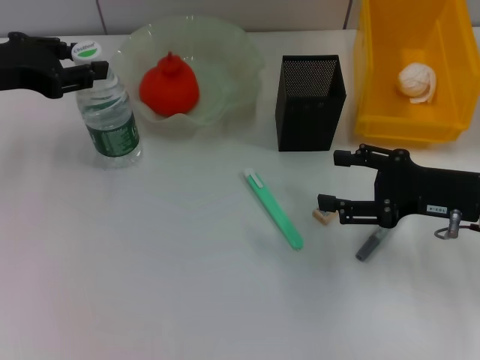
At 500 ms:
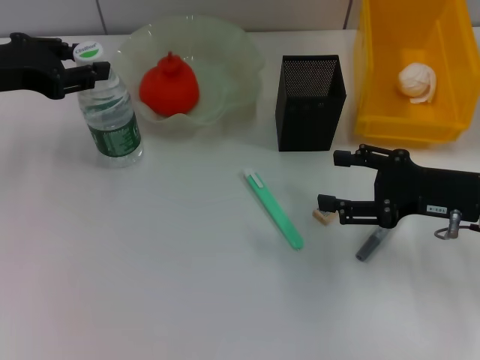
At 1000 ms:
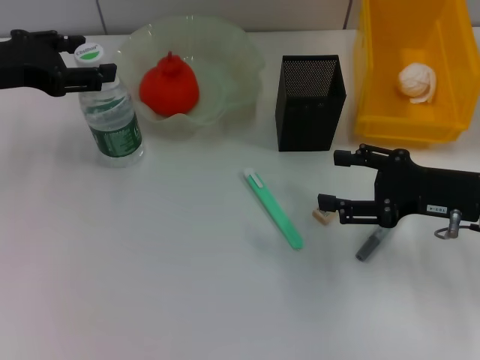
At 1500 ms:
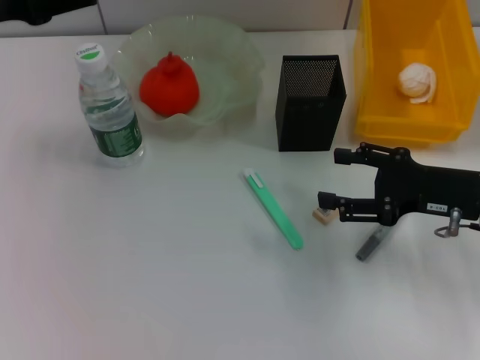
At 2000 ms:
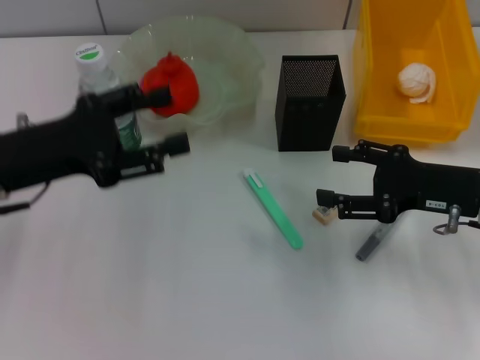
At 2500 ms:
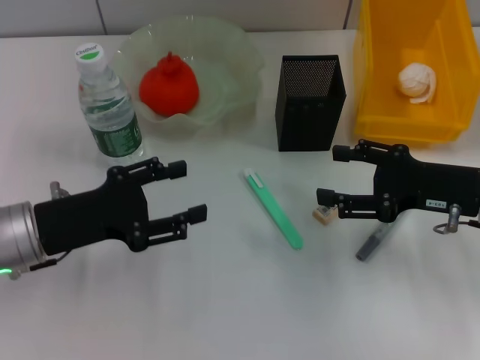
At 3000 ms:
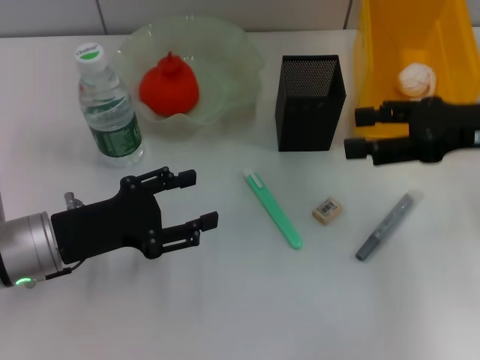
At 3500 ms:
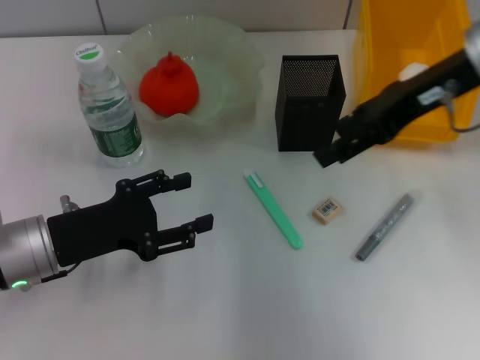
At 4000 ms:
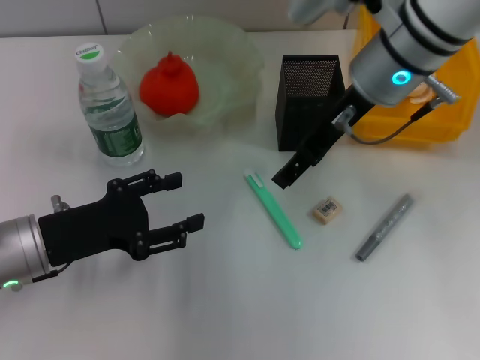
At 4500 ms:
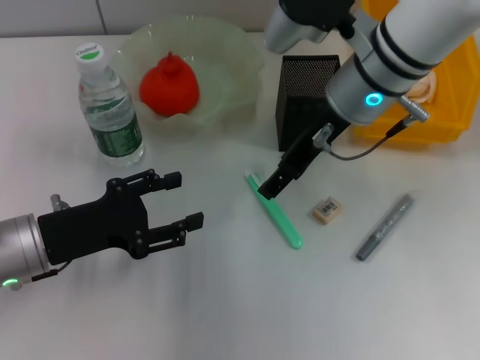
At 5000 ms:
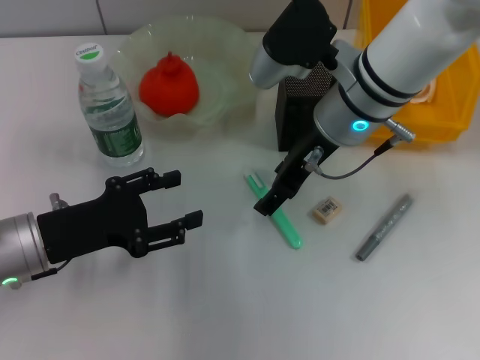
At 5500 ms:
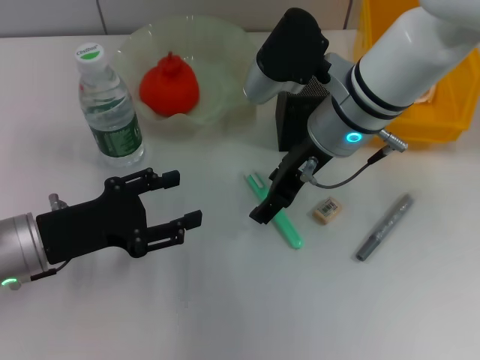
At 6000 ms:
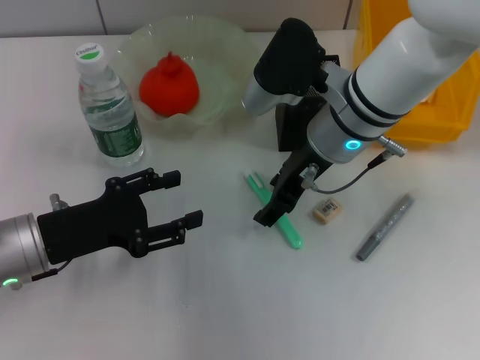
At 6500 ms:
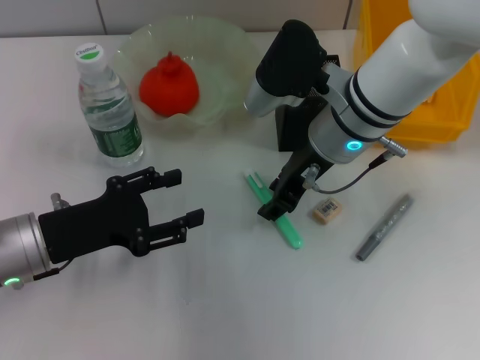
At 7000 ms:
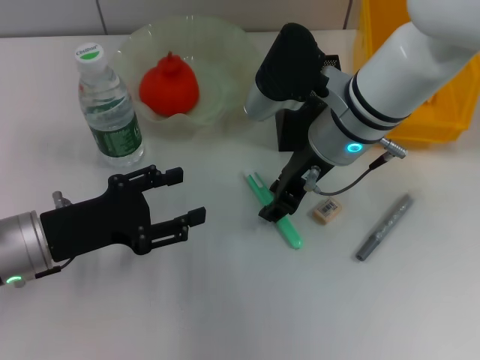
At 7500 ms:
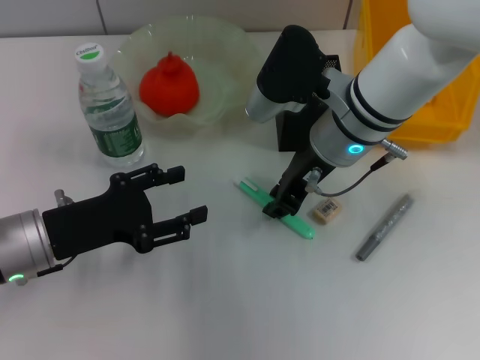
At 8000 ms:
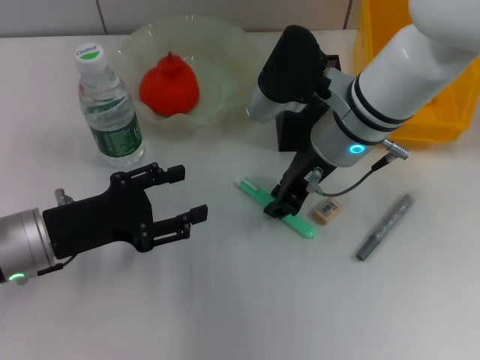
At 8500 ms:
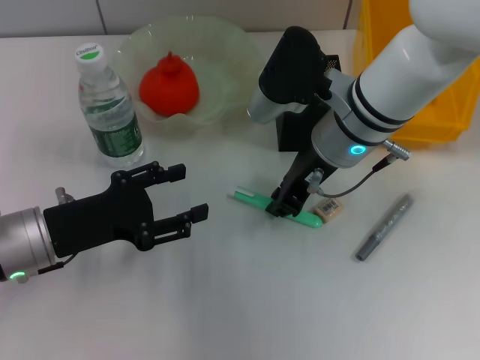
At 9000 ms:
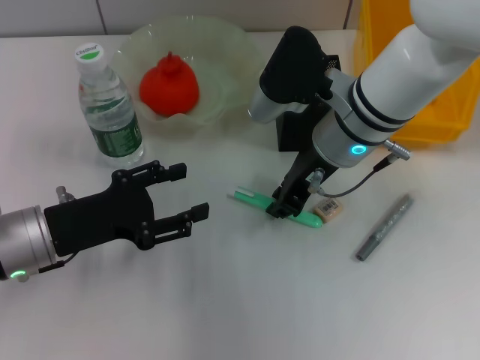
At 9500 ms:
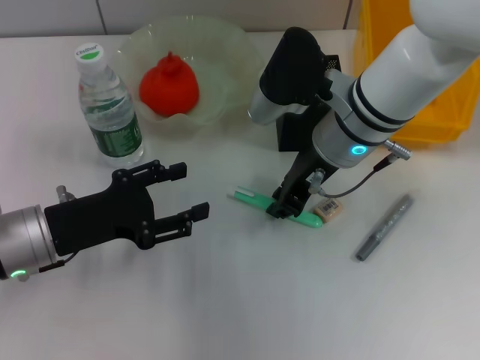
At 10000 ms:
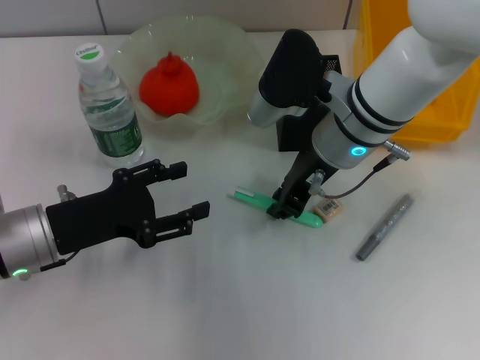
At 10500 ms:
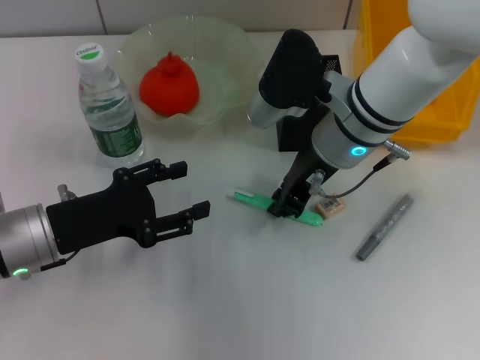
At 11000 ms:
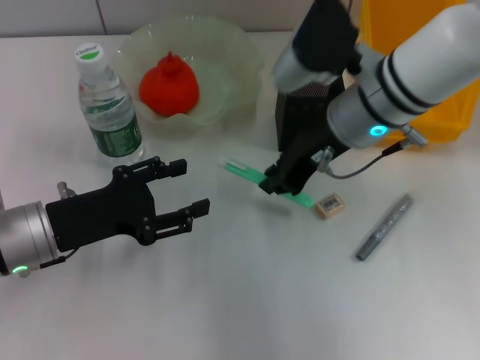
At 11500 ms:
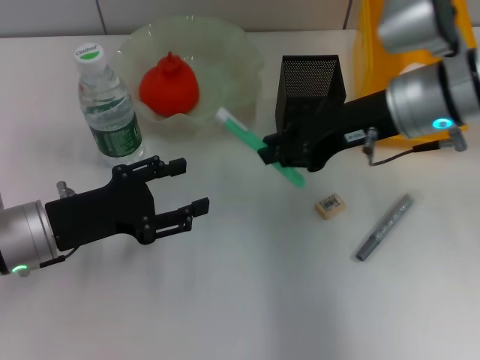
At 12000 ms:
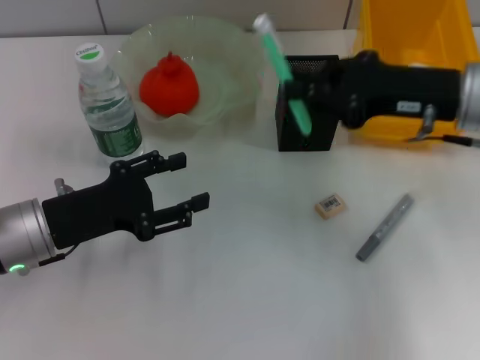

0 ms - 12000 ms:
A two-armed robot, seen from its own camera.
Step, 1500 ms - 10000 ms: Grab the blue utility knife with the right hand.
0 ms - 2000 ms: The left gripper moves backward and downward, approximately 10 cm, and opens.
2000 ms - 4000 ms: The right gripper travels to the left, upward and forward by approximately 20 cm, while the left gripper goes some 10 cm downward.
4000 ms - 6000 ms: The right gripper is displaced downward by about 5 cm.
6000 ms - 8000 ms: The right gripper closes its fingers.
8000 ms - 10000 ms: The two grippers keep their place.
10000 ms - 12000 ms: The right gripper heads to the right, covering approximately 15 cm.

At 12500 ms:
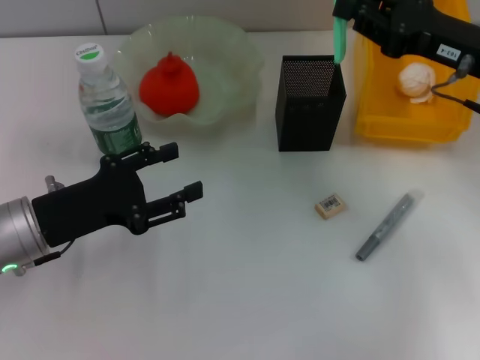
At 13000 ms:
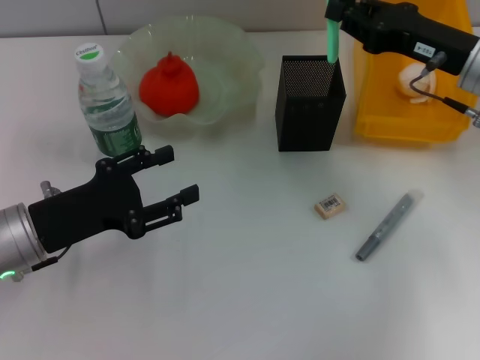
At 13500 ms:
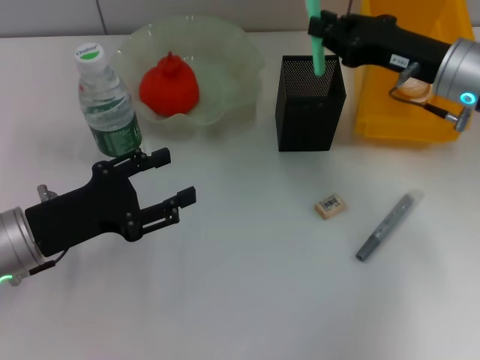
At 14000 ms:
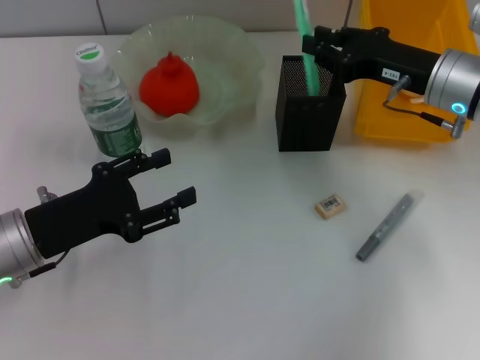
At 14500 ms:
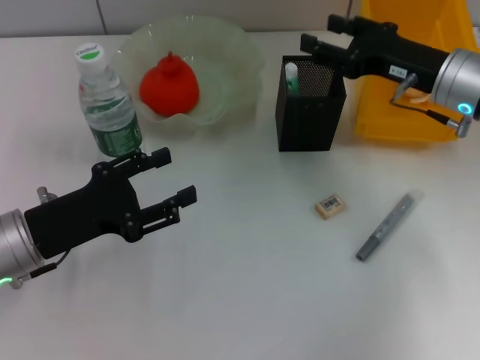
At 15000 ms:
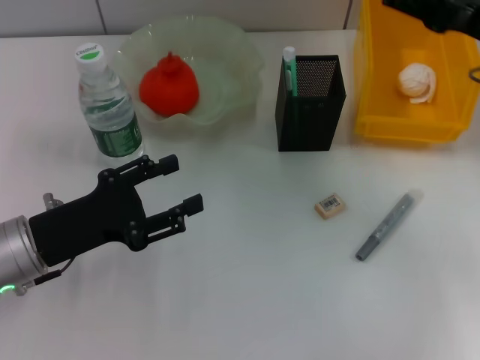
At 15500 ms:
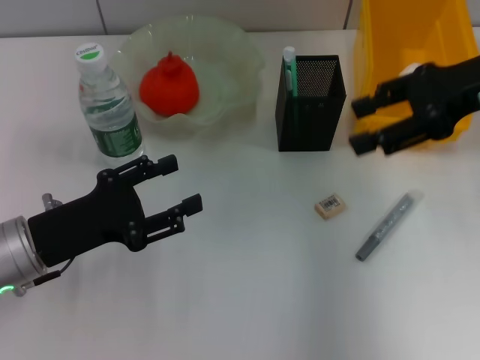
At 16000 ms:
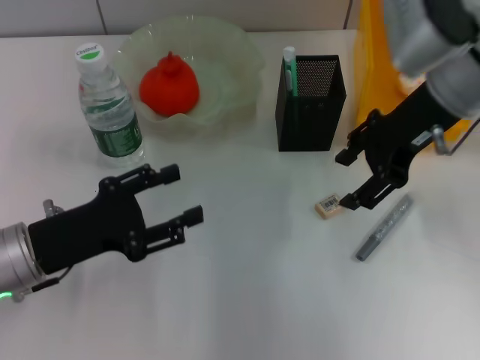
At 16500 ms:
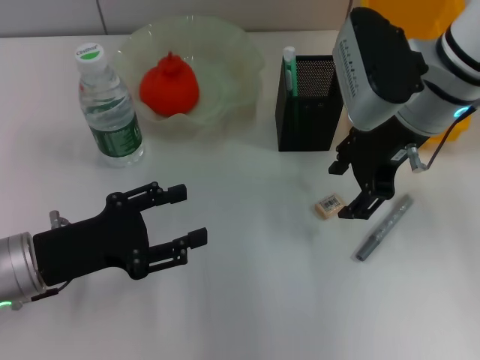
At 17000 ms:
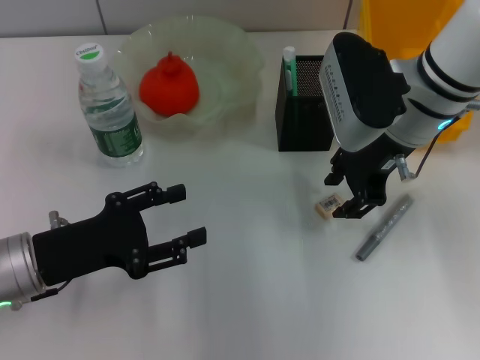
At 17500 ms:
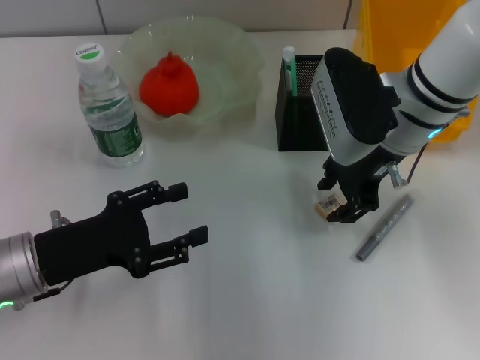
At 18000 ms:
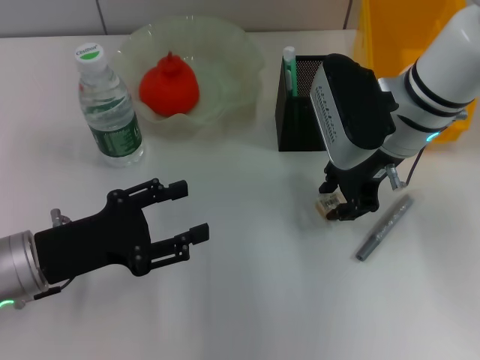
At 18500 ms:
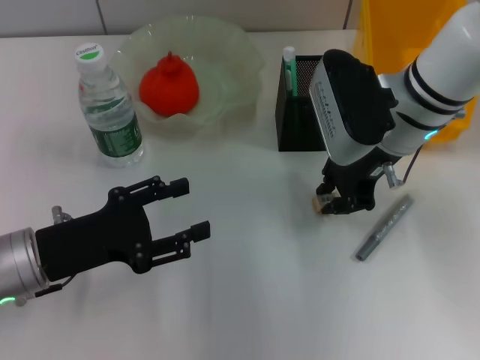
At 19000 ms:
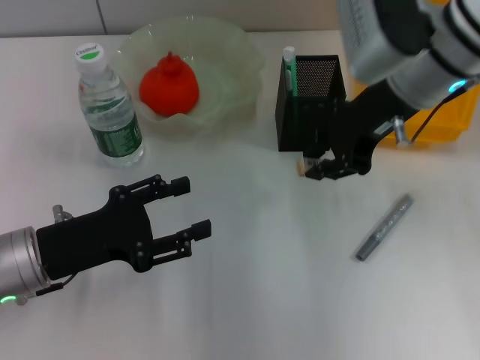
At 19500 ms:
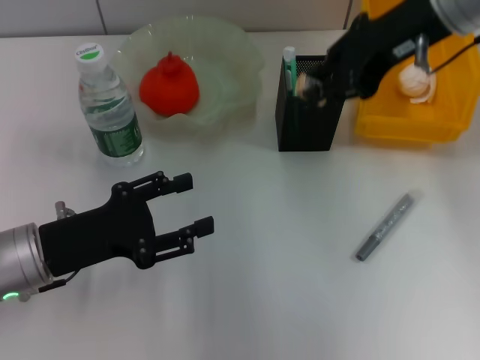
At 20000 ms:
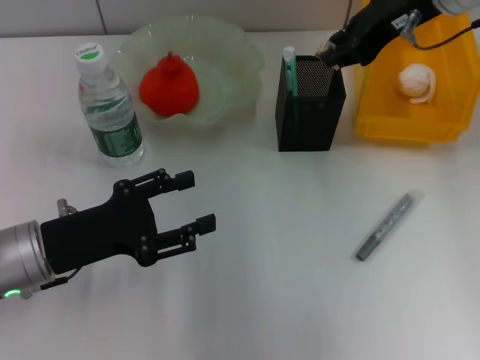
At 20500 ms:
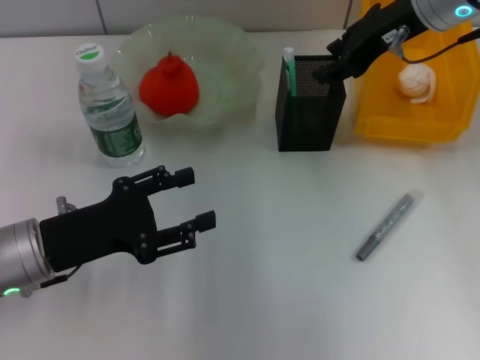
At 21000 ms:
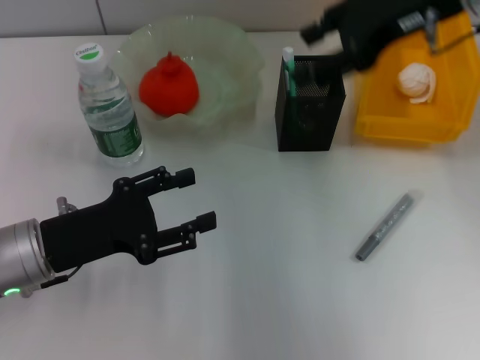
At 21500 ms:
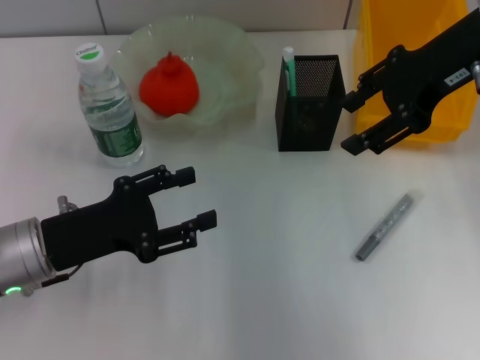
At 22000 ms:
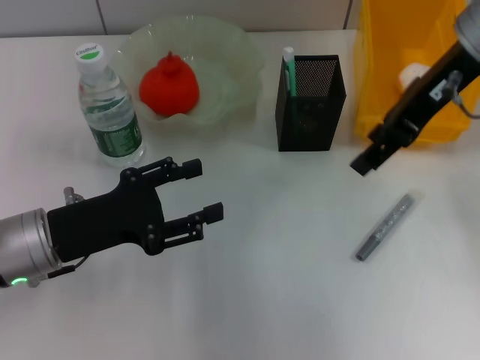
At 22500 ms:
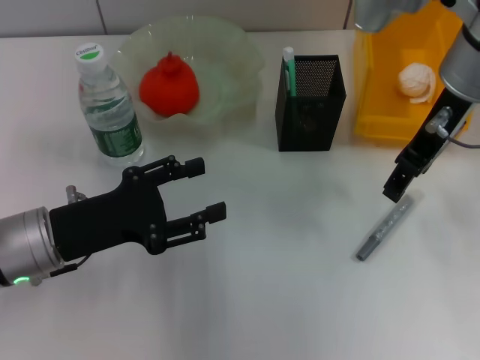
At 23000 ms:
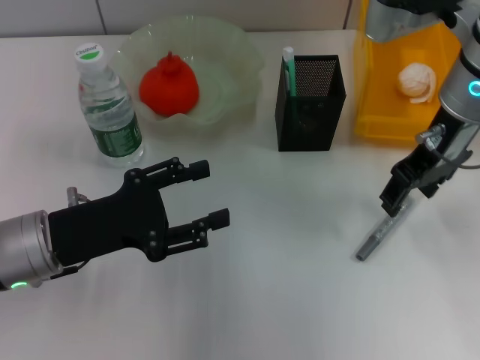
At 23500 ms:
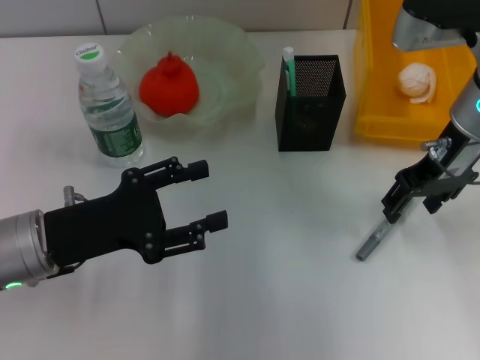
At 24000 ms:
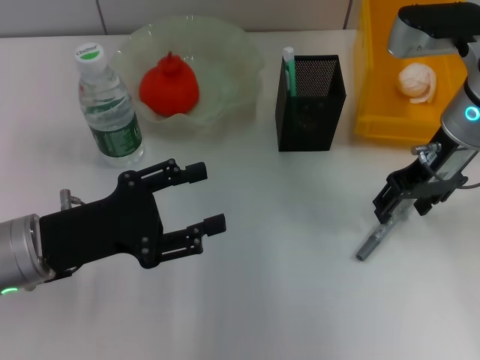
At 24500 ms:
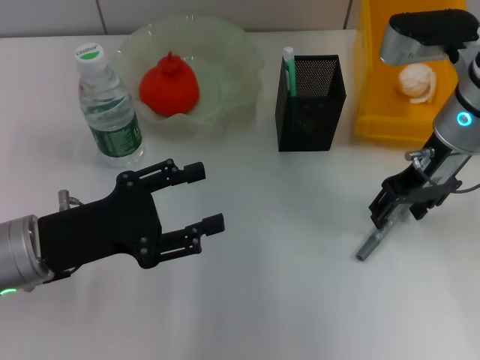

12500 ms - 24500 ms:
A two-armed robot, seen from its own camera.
Step, 15000 ms - 18000 ms: Grab the eraser with the right hand.
Step, 18500 ms - 21000 ms: Put the eraser into the pen holder with the right hand.
12500 ms - 14500 ms: The right gripper ends up some 5 cm from where it was, and opens.
14500 ms - 16500 ms: The right gripper goes some 10 cm to the left and upward, and opens up.
16500 ms - 18500 ms: The right gripper closes its fingers.
18500 ms - 20500 ms: The right gripper goes about 10 cm upward.
20500 ms - 22500 ms: The right gripper heads backward, covering about 5 cm, and opens up.
22500 ms - 24500 ms: The right gripper moves downward, some 5 cm.

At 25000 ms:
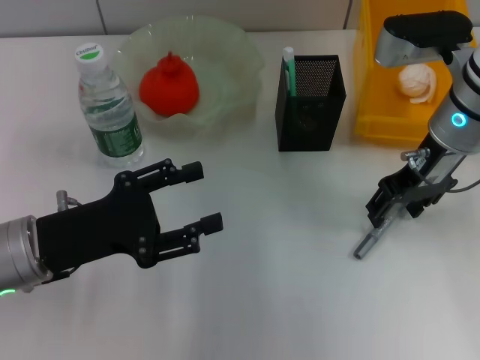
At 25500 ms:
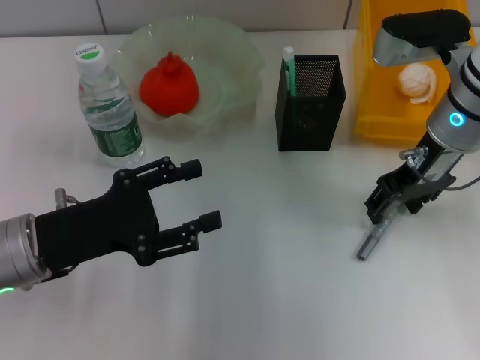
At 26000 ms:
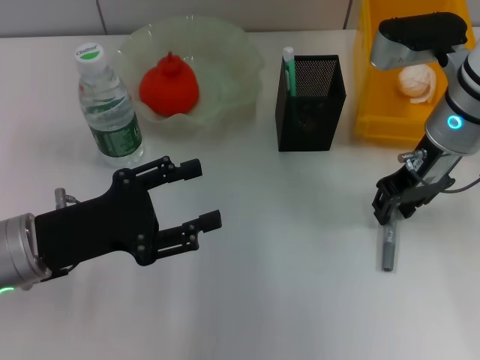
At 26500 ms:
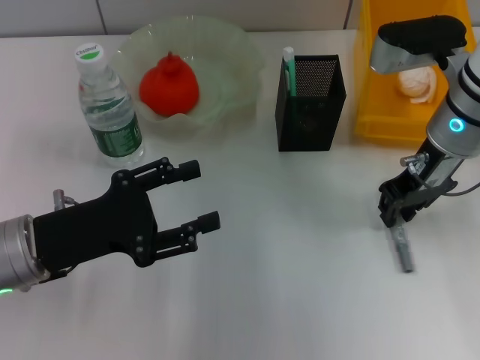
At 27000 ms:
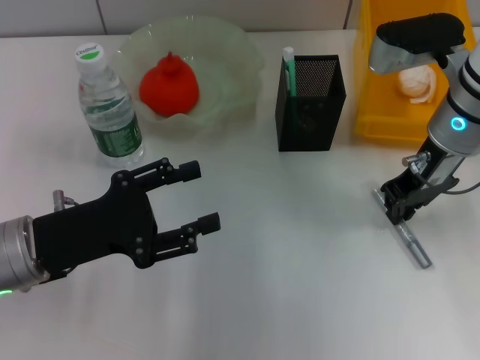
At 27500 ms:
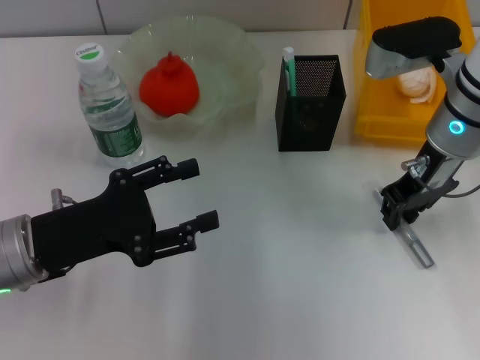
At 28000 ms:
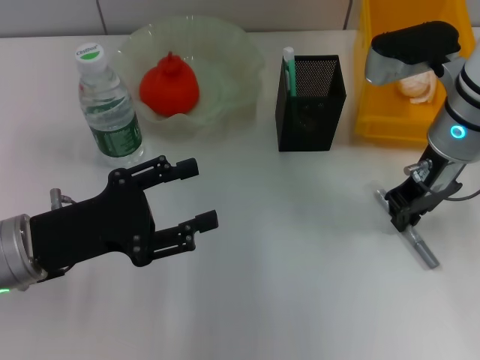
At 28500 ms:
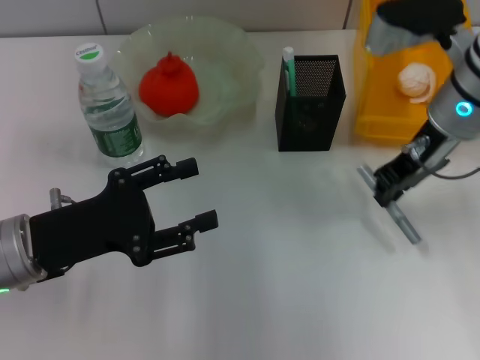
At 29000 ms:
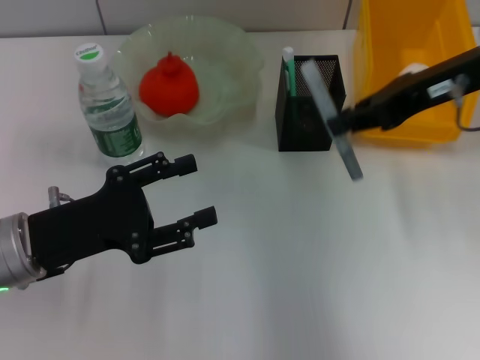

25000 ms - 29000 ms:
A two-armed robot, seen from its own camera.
Step, 25000 ms - 27500 ms: Grab the gray glue with the right hand.
25000 ms - 27000 ms: The right gripper closes its fingers.
27000 ms - 29000 ms: The right gripper heads upward, covering some 10 cm.
